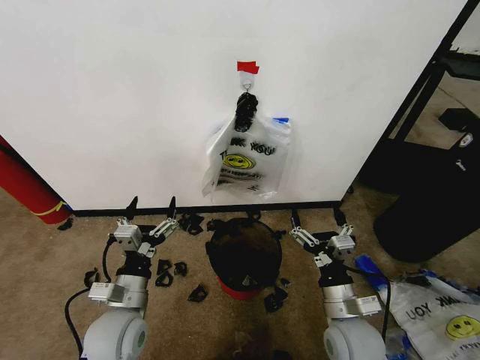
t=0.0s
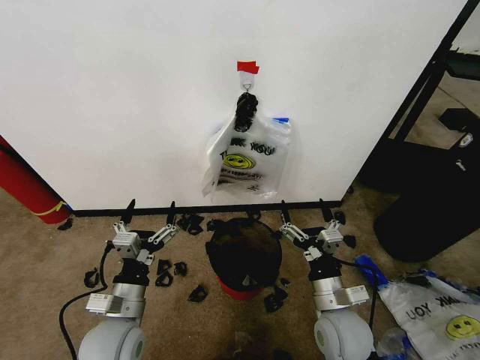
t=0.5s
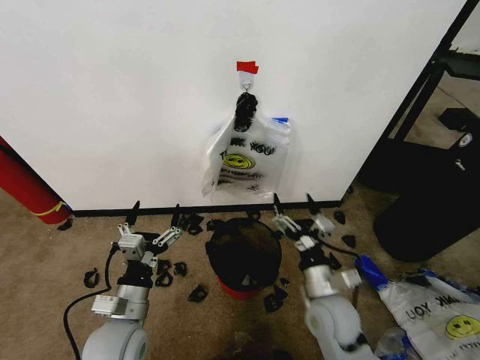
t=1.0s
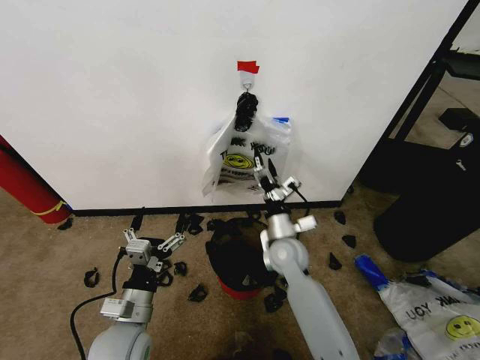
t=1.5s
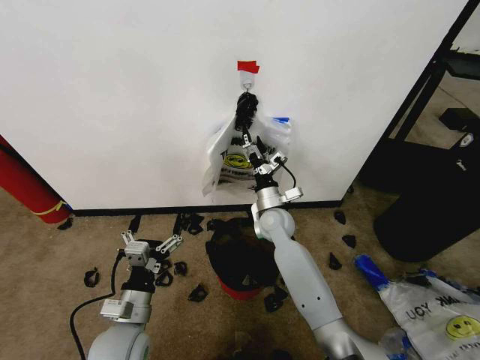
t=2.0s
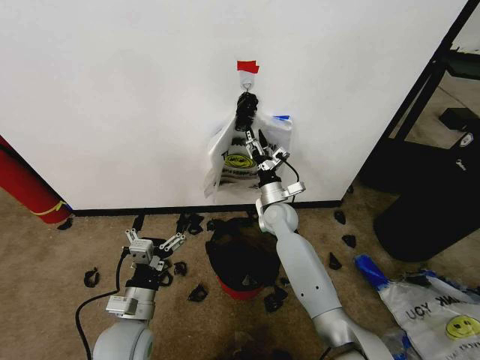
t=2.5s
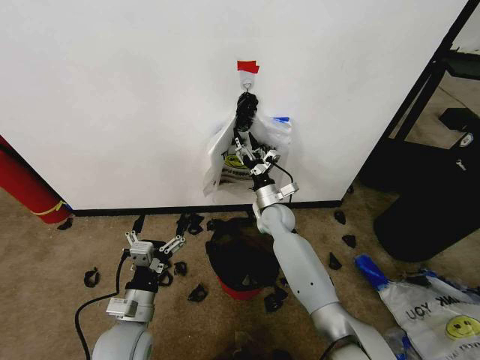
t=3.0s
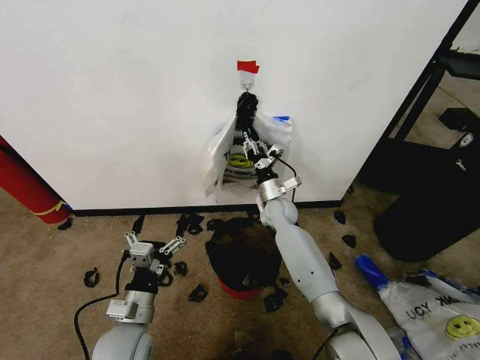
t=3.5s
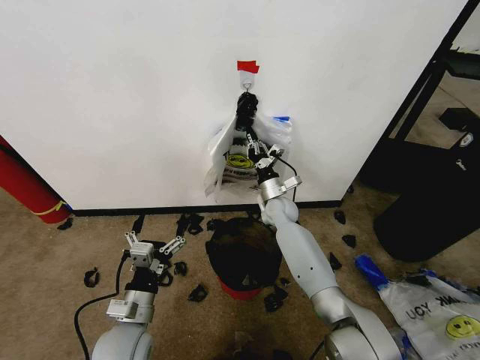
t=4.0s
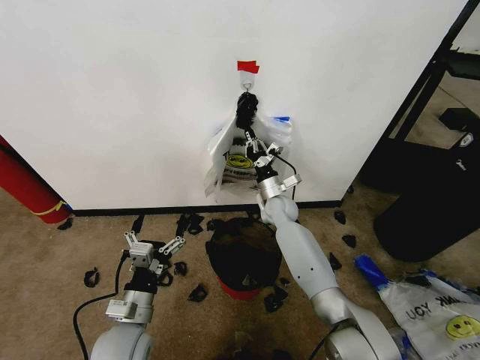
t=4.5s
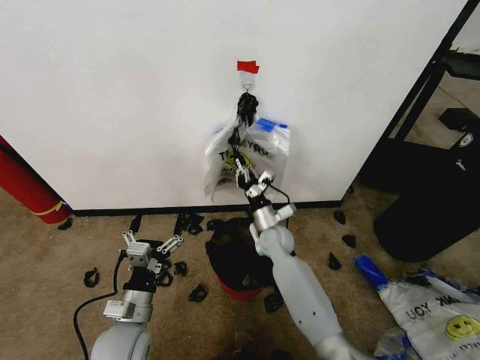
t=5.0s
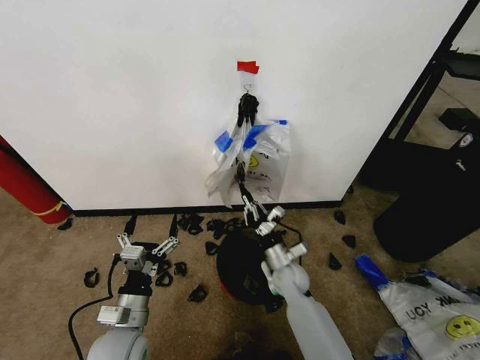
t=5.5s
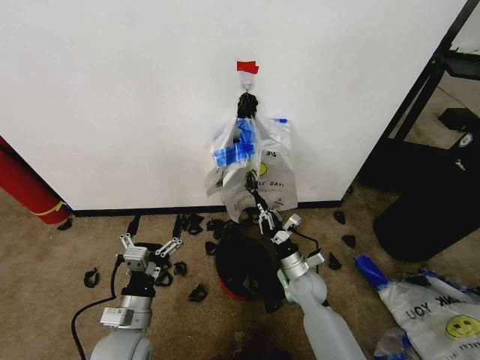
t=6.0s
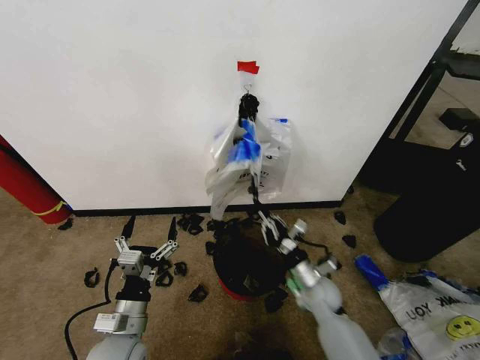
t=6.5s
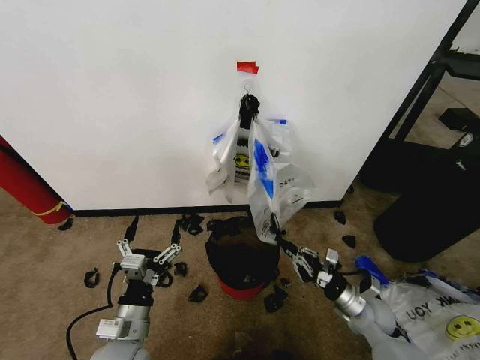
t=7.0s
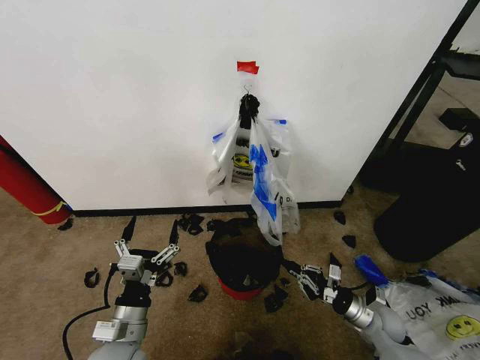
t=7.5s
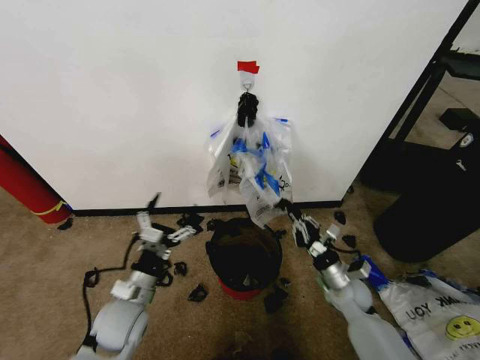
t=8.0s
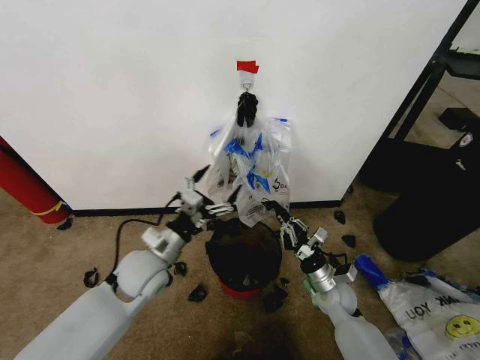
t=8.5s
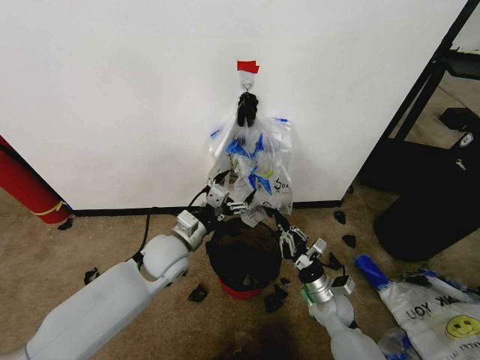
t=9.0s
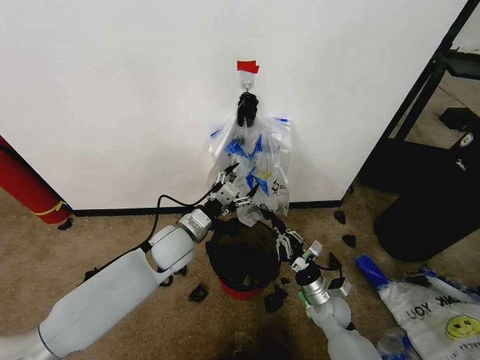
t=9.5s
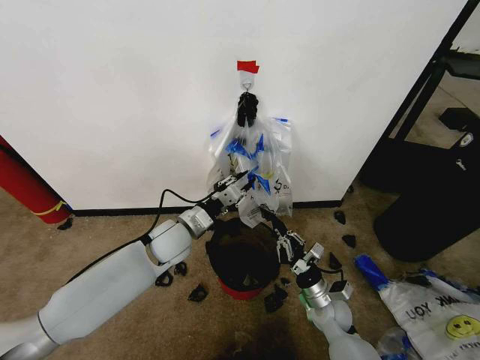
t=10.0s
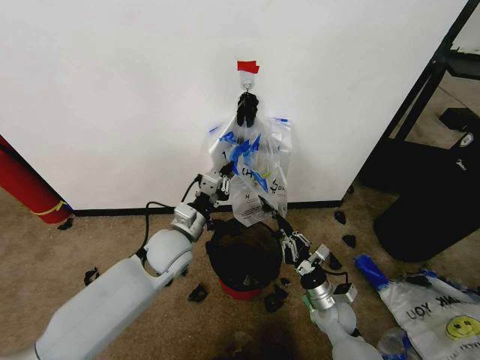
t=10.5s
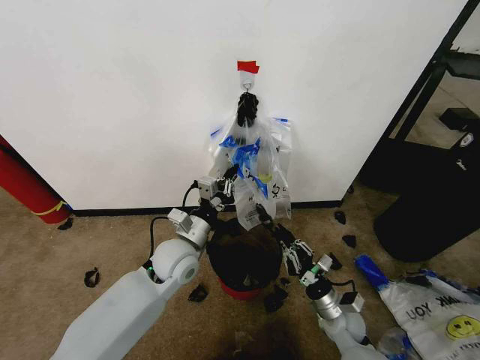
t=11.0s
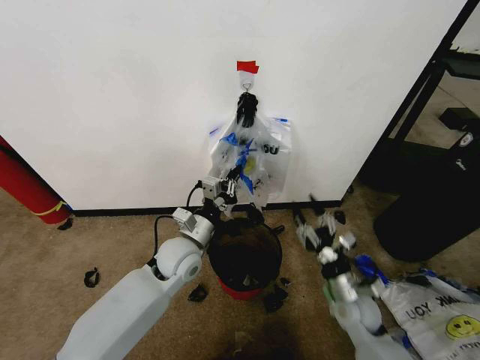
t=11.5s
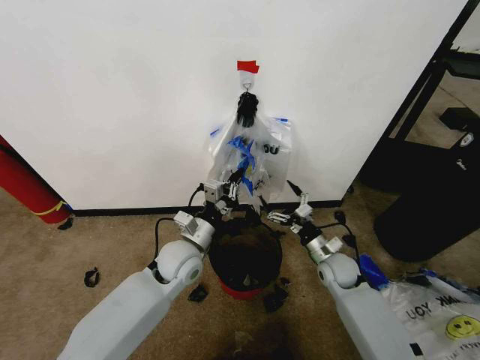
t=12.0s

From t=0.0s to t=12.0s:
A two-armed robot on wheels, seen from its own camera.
Task of the whole recording: Pick up the garbage bag from the wall and place it over the trash bin.
From t=2.0s to t=4.0s: The right gripper goes roughly 5 cm forward, and closes its fingers.
From t=4.0s to t=6.0s: The right gripper is displaced backward and downward by roughly 20 cm.
From t=6.0s to t=8.0s: The right gripper shifts some 10 cm to the right. Meanwhile the left gripper shifts roughly 5 cm forward.
From t=8.0s to t=10.0s: The right gripper moves to the left, roughly 5 cm. Meanwhile the left gripper goes approximately 20 cm forward, to the right and upward, and closes.
From t=10.0s to t=12.0s: The left gripper shifts by about 5 cm; the right gripper heads forward and upward, covering roughly 10 cm, and opens.

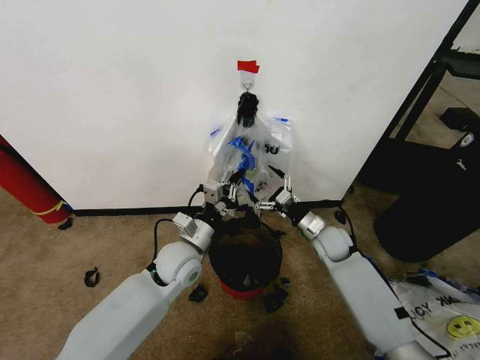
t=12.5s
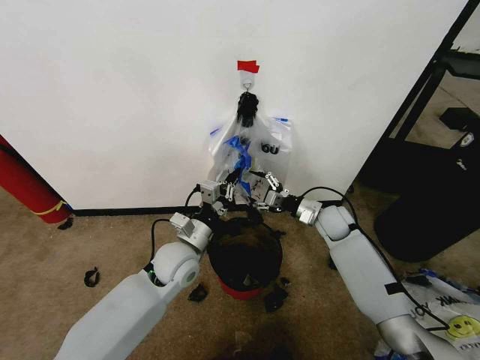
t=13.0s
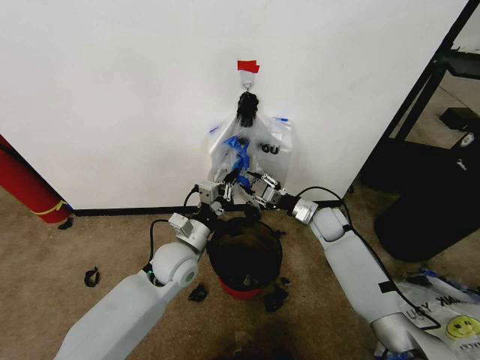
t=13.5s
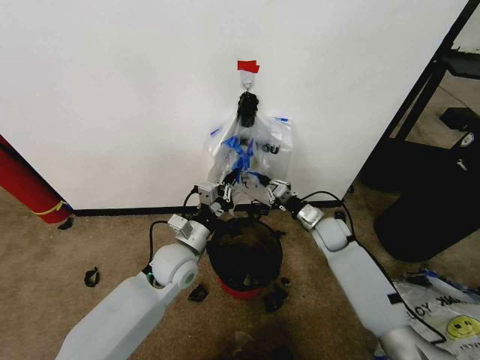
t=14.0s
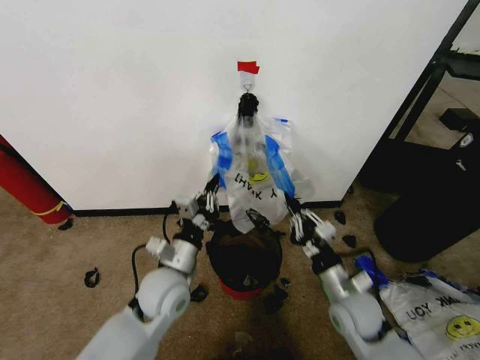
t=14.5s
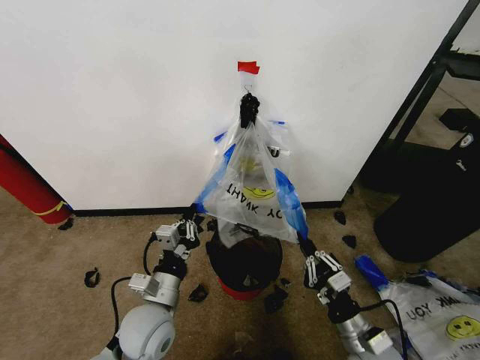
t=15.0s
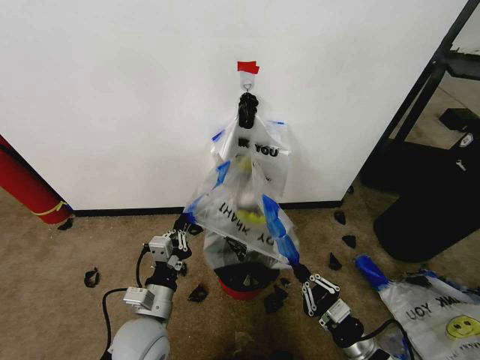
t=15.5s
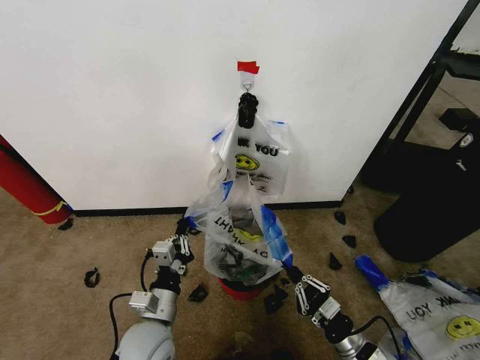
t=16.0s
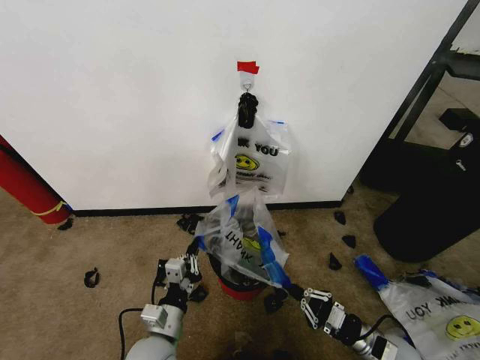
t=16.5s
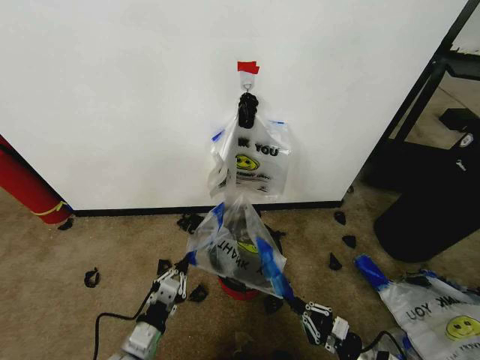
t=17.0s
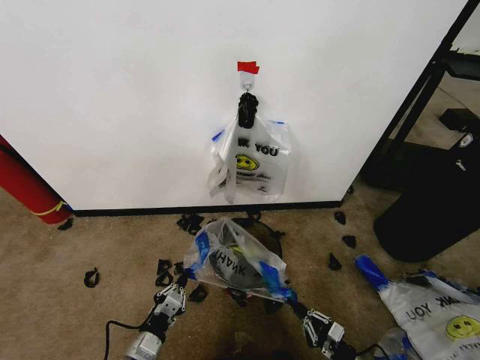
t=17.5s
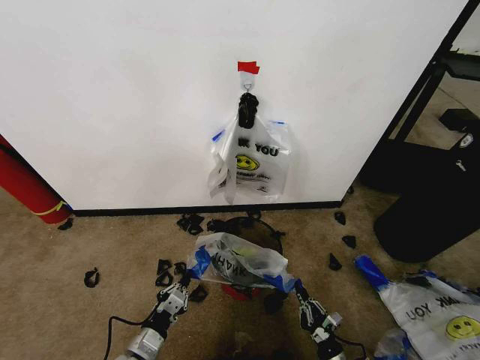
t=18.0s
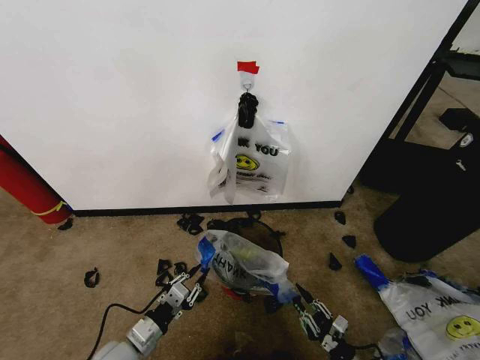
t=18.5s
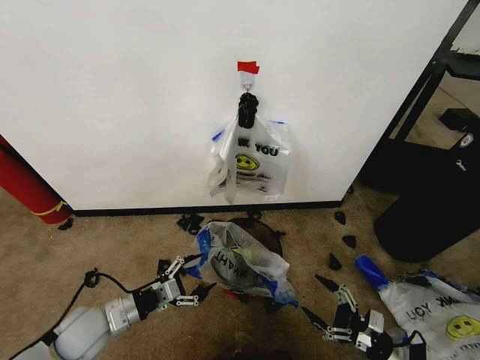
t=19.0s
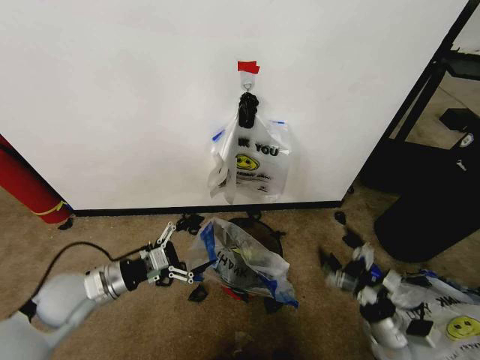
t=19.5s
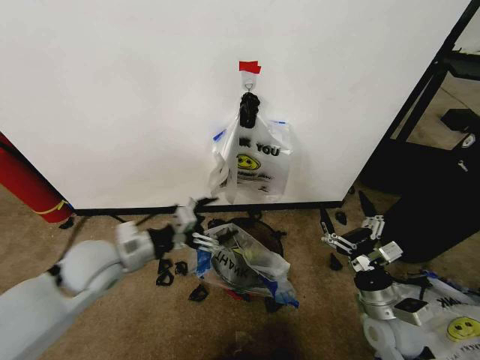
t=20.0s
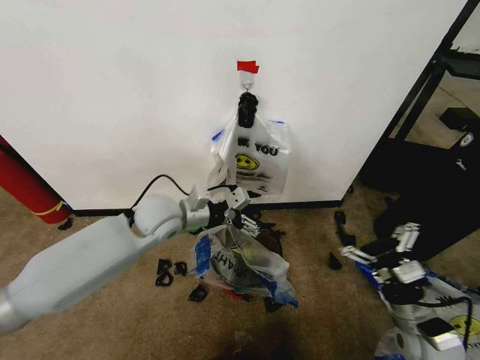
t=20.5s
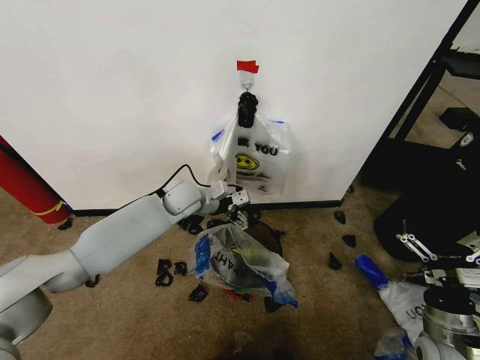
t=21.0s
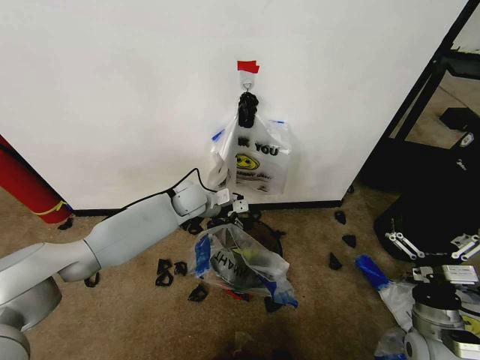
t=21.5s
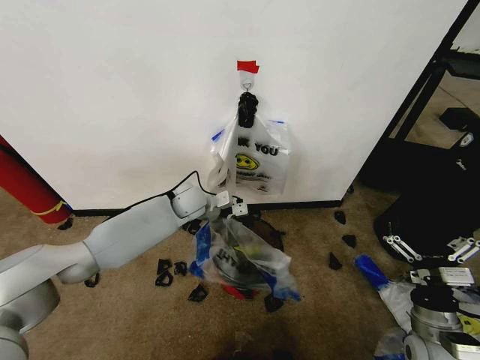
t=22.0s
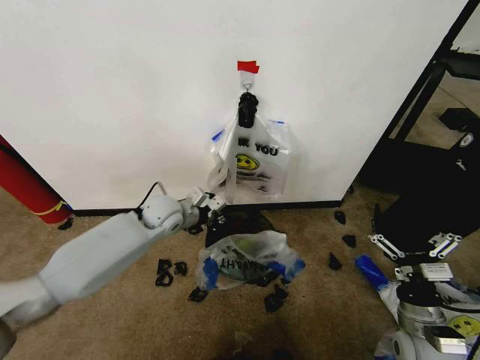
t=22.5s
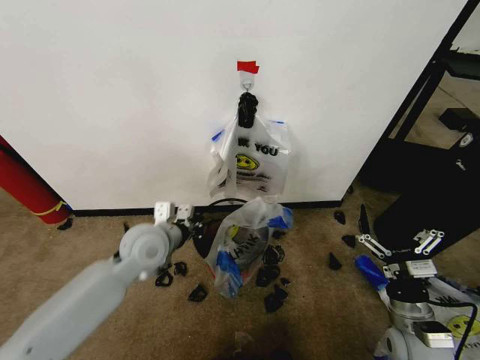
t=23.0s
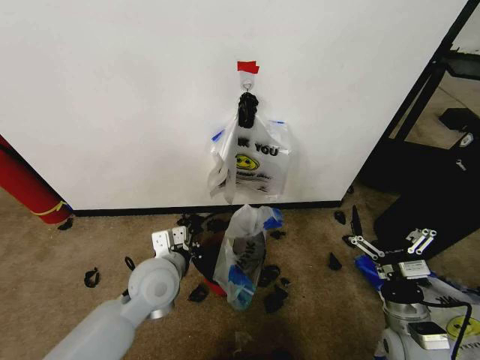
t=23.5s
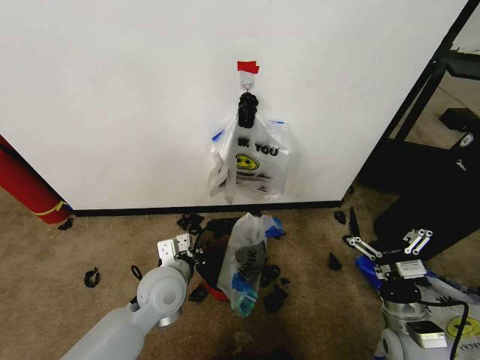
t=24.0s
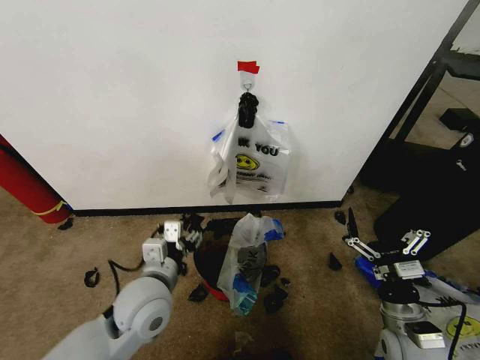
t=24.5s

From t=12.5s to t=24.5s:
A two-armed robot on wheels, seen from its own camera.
Task of the whole recording: Pick up the garbage bag from the wall and place it over the trash bin.
From t=12.5s to t=14.5s: The right gripper is displaced backward by approximately 15 cm, and closes; the left gripper travels backward by about 5 cm.
From t=14.5s to t=16.5s: The right gripper shifts approximately 15 cm downward, to the right and backward. The left gripper heads backward and downward, covering about 15 cm.
From t=16.5s to t=18.5s: The right gripper goes some 10 cm downward and backward. The left gripper travels to the left by some 10 cm.
From t=18.5s to t=20.5s: The left gripper moves upward and forward, about 30 cm, and opens. Meanwhile the right gripper moves upward, some 20 cm, and opens its fingers.
From t=20.5s to t=22.5s: The left gripper is displaced downward and forward by about 10 cm, and closes up.
From t=22.5s to t=24.5s: The left gripper is displaced backward by some 20 cm, and opens its fingers.

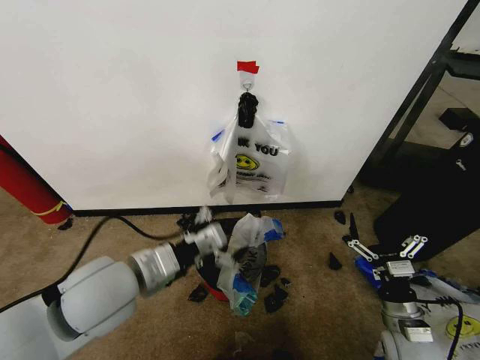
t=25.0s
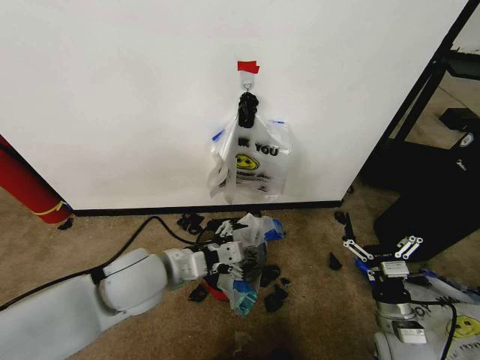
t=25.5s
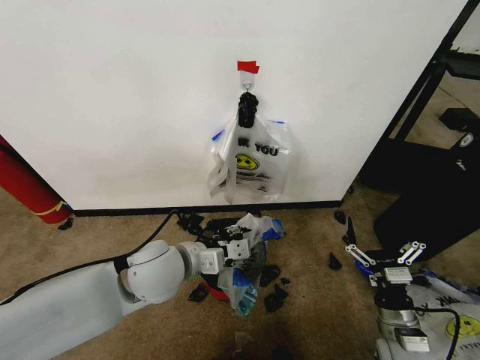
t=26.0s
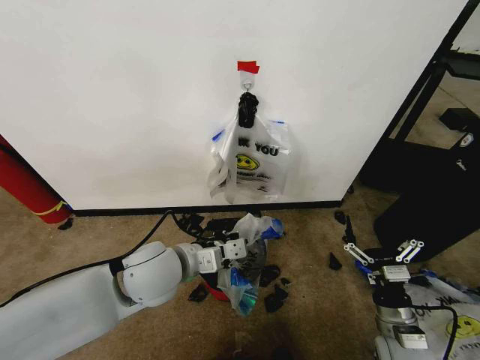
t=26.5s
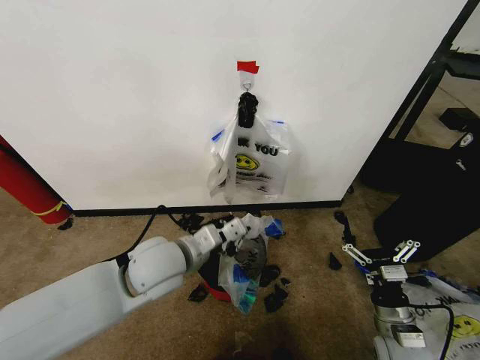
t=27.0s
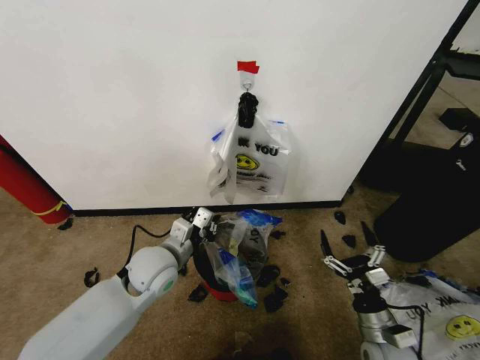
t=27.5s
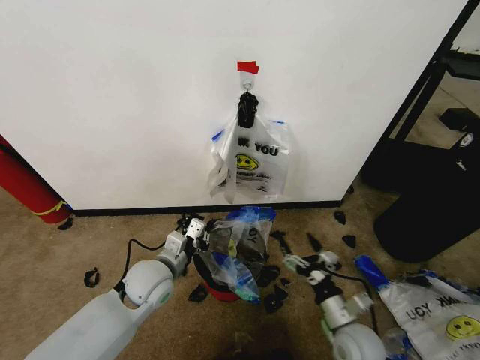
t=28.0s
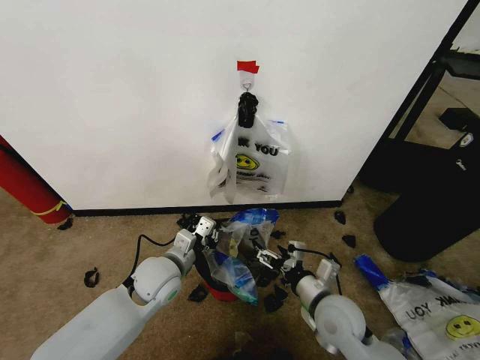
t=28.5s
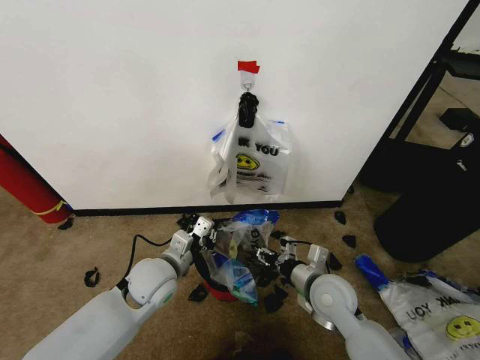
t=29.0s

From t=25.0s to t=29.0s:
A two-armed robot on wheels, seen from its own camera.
Task of the whole recording: Pick up the garbage bag from the wall and place it over the trash bin.
From t=25.0s to t=27.0s: The left gripper shifts approximately 10 cm forward and to the right, and closes up.
From t=27.0s to t=29.0s: The right gripper travels to the left, forward and upward by some 15 cm, and closes its fingers; the left gripper shifts some 10 cm downward.
